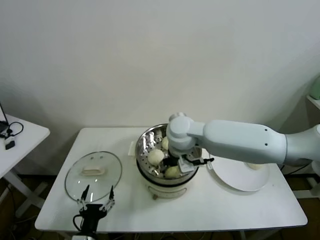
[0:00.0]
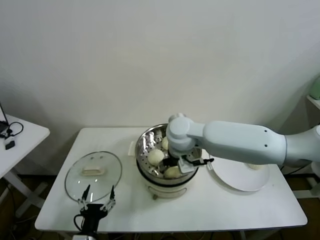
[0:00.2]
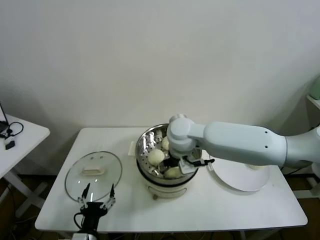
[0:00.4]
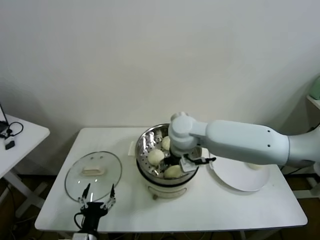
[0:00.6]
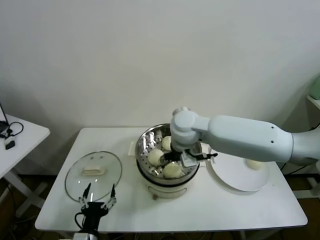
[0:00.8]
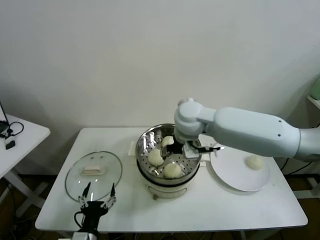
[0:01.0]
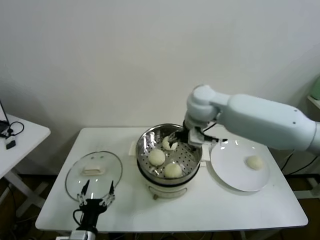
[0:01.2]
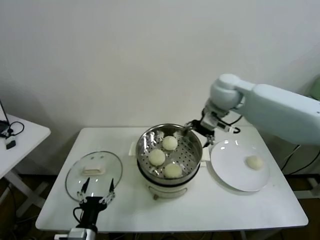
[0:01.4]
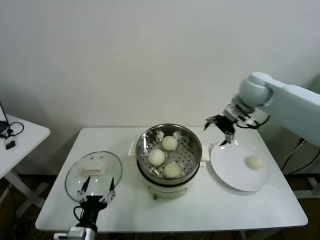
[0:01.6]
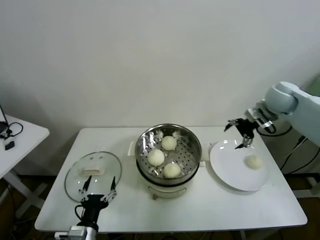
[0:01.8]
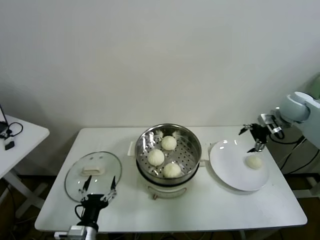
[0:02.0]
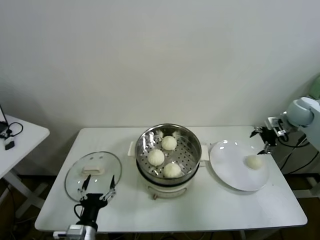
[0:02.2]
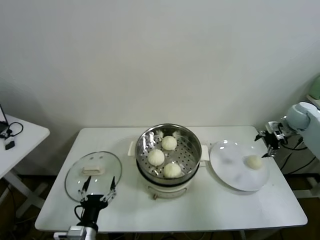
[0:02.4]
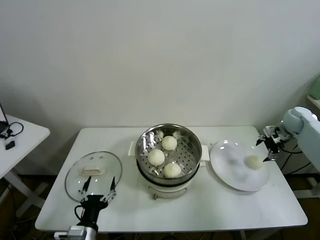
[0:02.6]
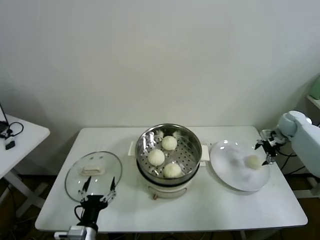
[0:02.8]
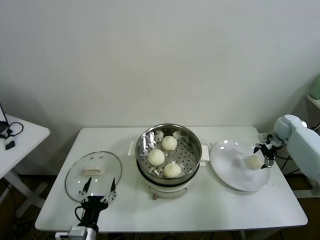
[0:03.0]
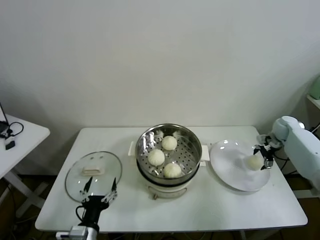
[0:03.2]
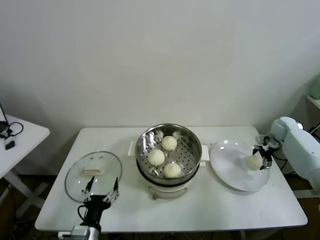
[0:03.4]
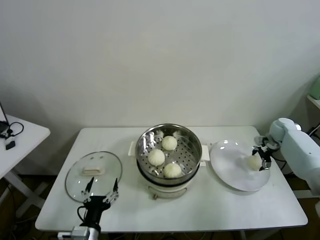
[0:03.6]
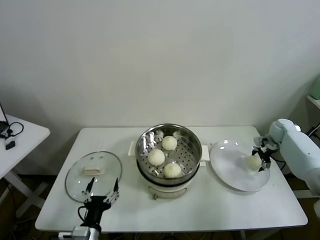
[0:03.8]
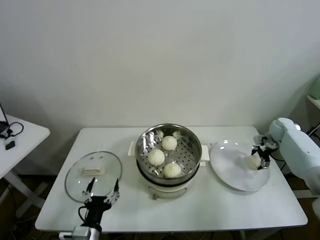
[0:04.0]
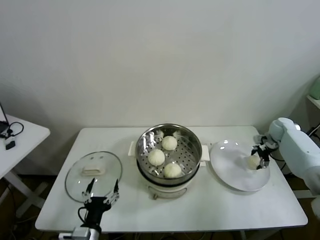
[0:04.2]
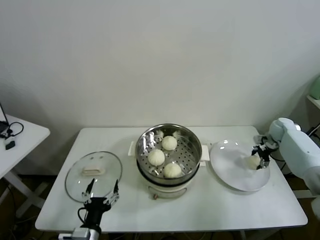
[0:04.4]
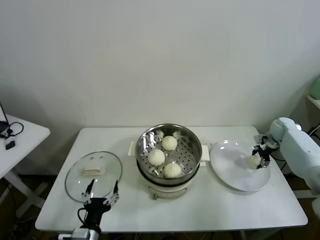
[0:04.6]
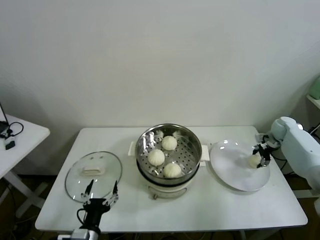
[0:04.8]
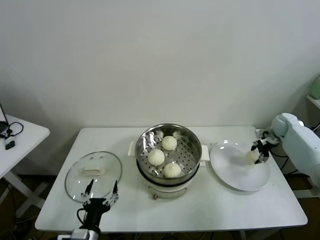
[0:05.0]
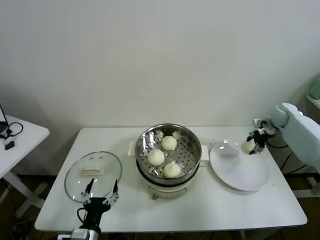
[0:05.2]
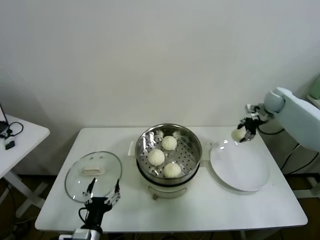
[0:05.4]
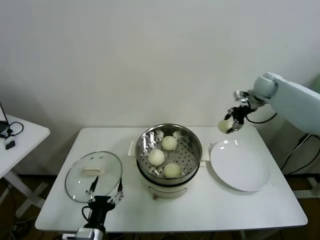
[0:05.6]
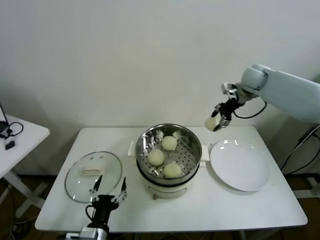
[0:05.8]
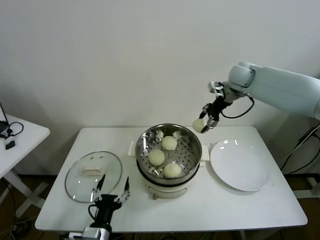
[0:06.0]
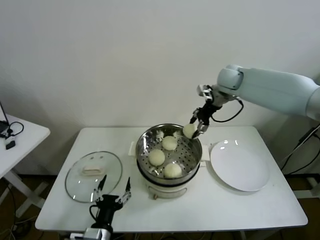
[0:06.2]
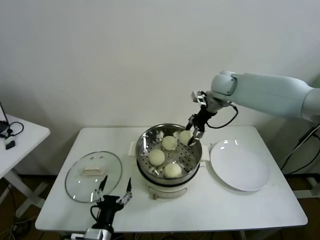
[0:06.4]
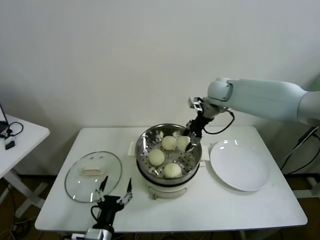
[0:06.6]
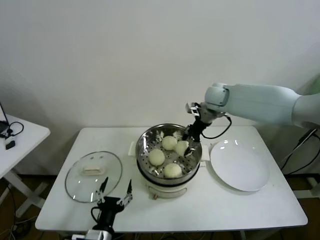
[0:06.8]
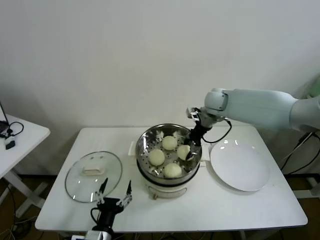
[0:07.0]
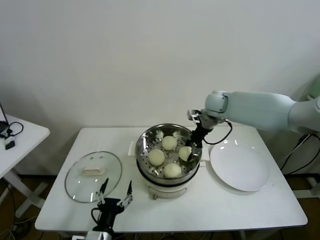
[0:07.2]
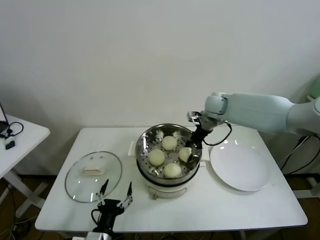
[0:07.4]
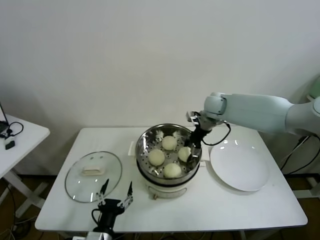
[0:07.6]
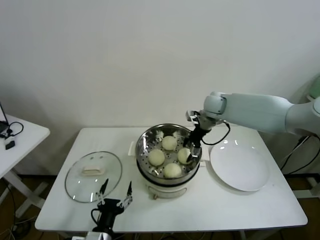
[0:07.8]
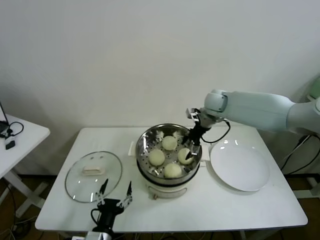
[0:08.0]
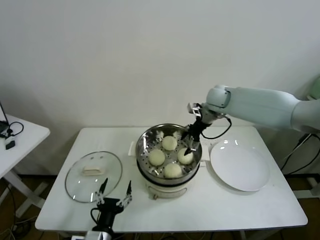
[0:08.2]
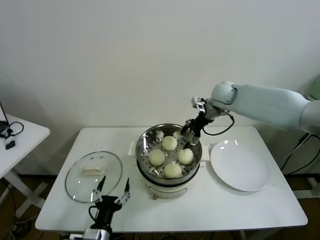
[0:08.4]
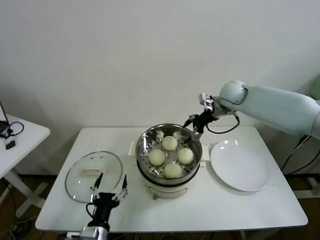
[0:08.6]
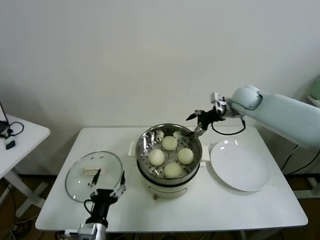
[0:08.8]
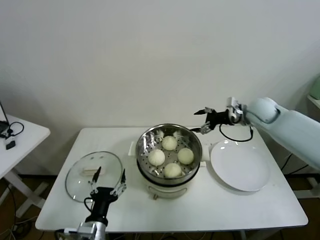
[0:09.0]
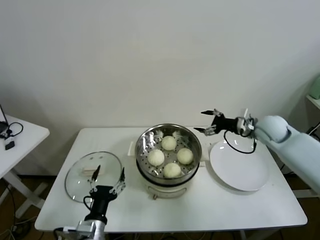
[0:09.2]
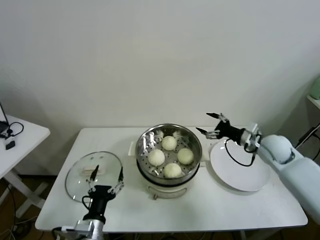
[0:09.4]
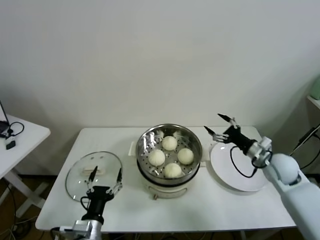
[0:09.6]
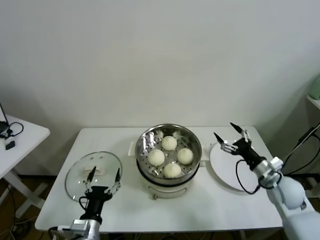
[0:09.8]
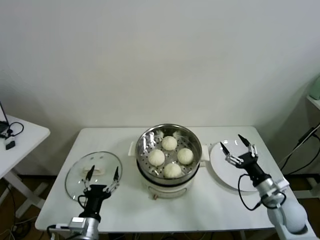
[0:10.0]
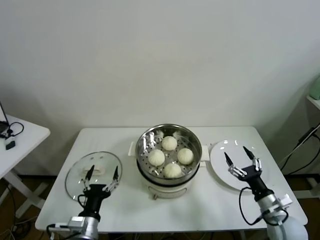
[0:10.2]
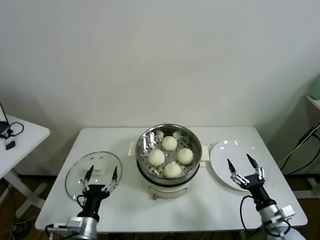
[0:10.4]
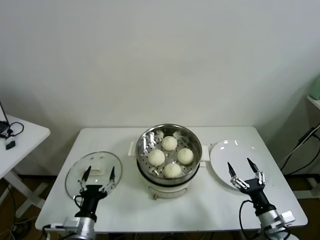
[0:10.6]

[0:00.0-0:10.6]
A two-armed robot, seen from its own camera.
Task of the whole recording: take steamed baozi put them in steamer.
Step, 0:00.8 to 0:04.6: Grasp the baozi in the plate with right gripper.
Step, 0:04.8 to 0:08.0: Place the baozi on the steamer with right gripper.
0:00.0 to 0:01.6: The right gripper goes about 25 cm to the right and forward, and opens up.
0:01.6 to 0:03.0: The right gripper shifts about 30 cm to the right and downward.
0:03.0 to 0:04.6: The right gripper closes its fingers.
0:04.6 to 0:06.0: The right gripper shifts about 30 cm upward and to the left.
0:06.0 to 0:07.6: The right gripper moves downward and to the left, approximately 15 cm.
0:07.6 to 0:09.0: The right gripper travels to the right by roughly 10 cm, and opens its fingers.
0:09.0 to 0:10.6: The right gripper moves backward and downward, approximately 40 cm.
